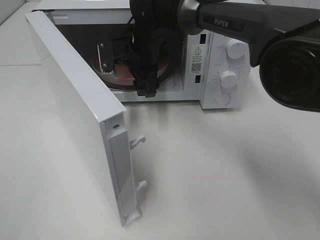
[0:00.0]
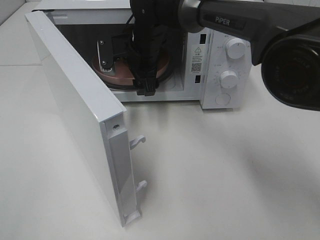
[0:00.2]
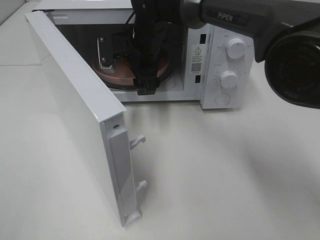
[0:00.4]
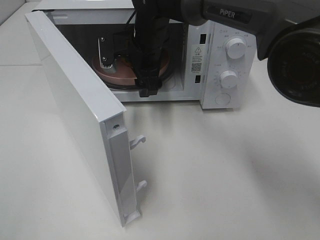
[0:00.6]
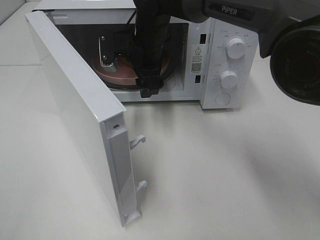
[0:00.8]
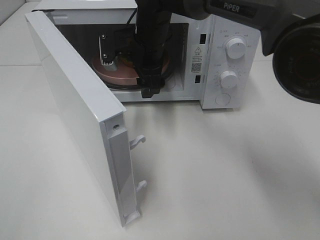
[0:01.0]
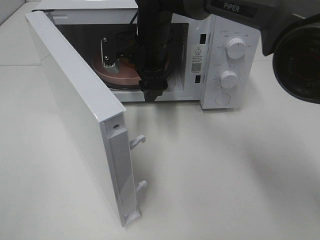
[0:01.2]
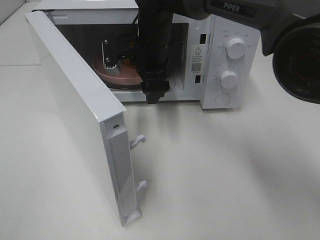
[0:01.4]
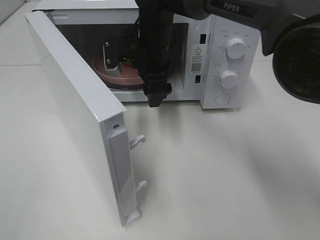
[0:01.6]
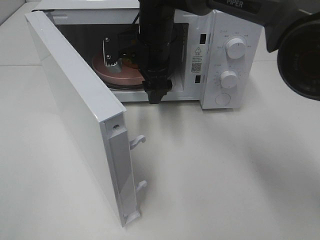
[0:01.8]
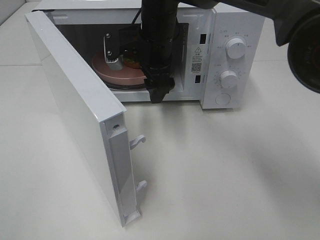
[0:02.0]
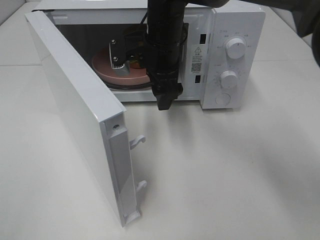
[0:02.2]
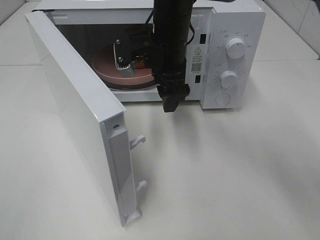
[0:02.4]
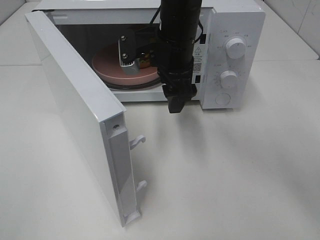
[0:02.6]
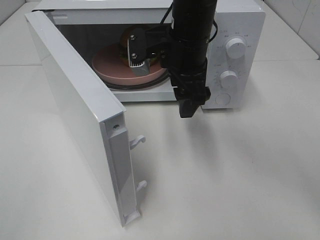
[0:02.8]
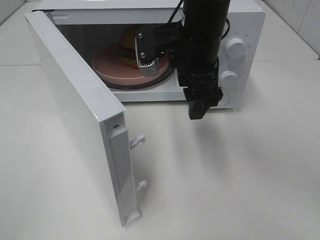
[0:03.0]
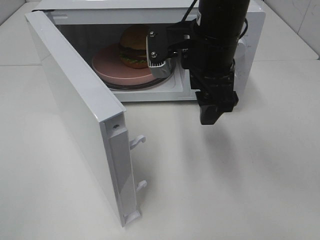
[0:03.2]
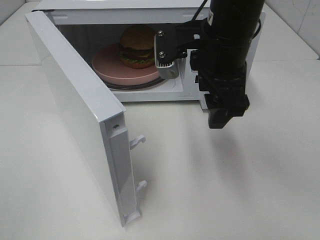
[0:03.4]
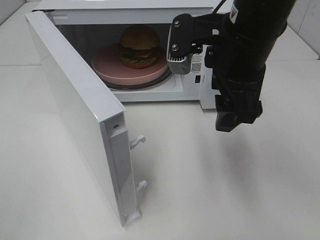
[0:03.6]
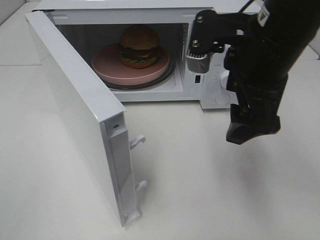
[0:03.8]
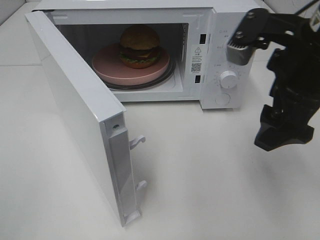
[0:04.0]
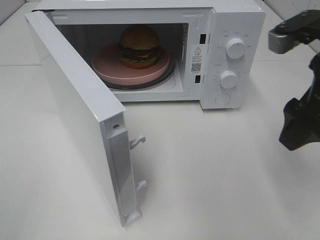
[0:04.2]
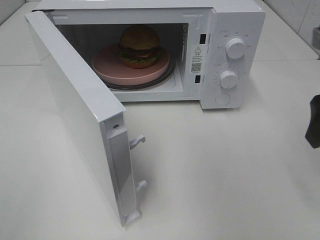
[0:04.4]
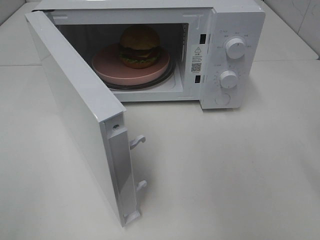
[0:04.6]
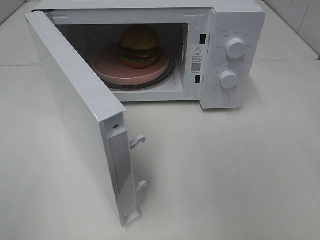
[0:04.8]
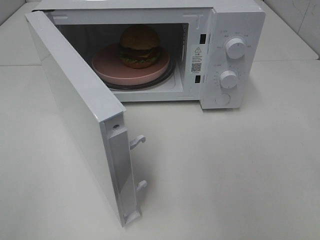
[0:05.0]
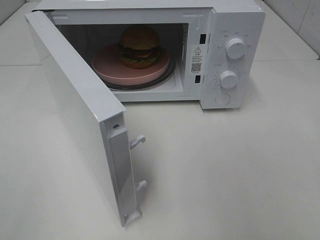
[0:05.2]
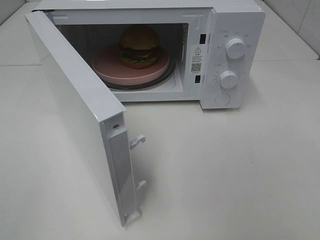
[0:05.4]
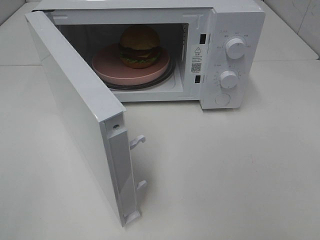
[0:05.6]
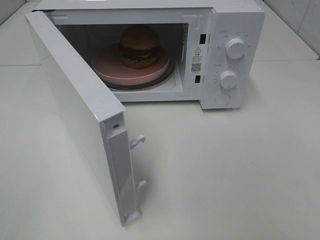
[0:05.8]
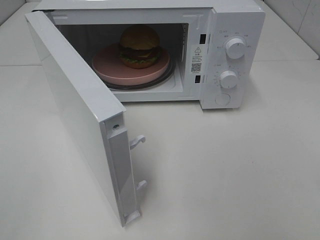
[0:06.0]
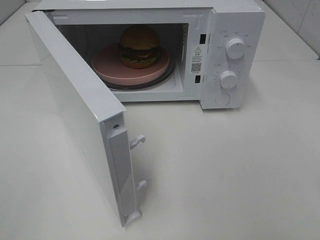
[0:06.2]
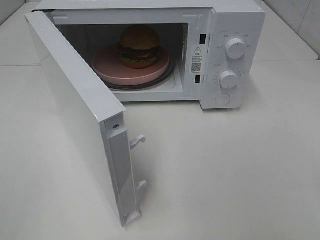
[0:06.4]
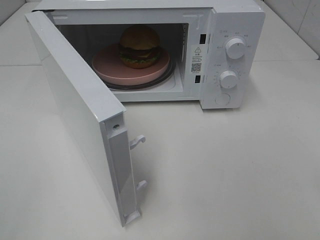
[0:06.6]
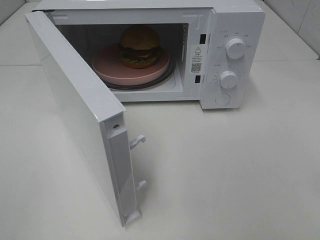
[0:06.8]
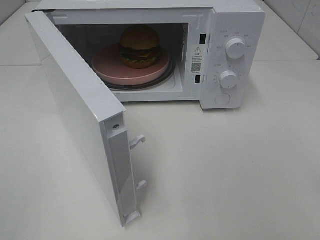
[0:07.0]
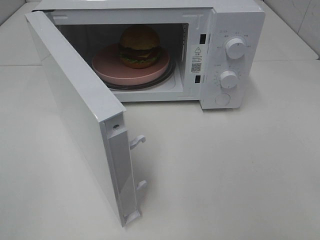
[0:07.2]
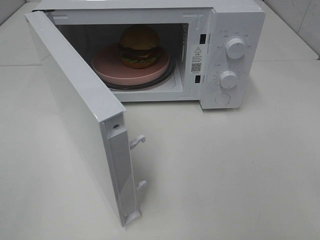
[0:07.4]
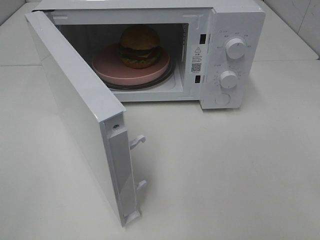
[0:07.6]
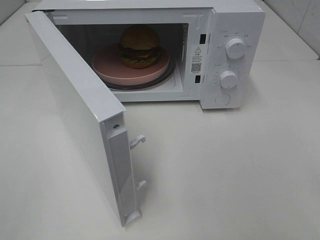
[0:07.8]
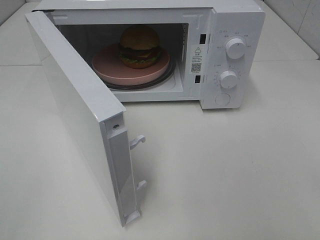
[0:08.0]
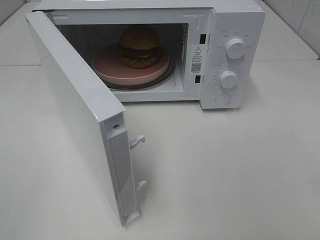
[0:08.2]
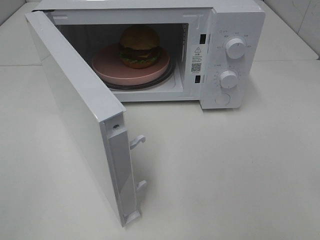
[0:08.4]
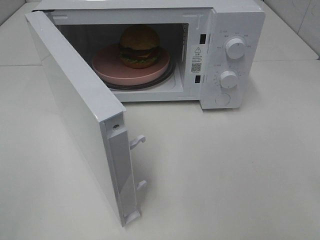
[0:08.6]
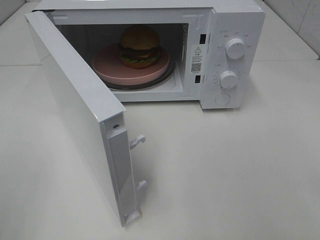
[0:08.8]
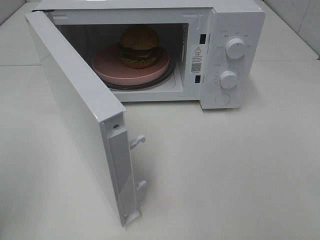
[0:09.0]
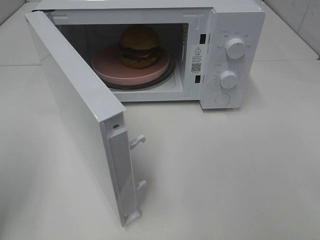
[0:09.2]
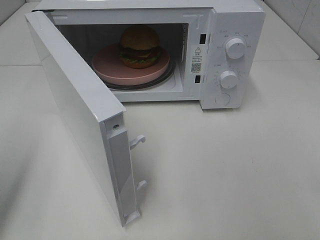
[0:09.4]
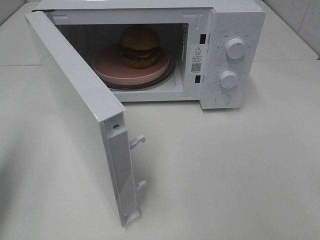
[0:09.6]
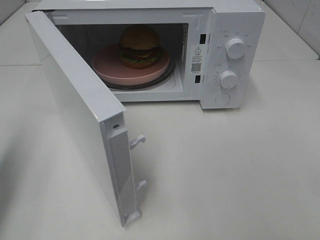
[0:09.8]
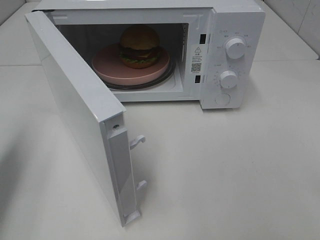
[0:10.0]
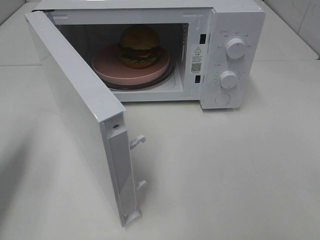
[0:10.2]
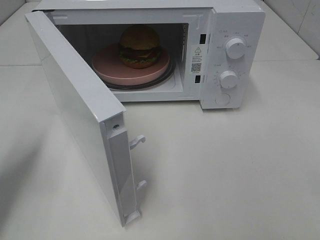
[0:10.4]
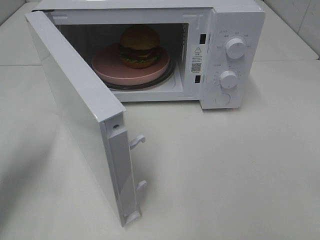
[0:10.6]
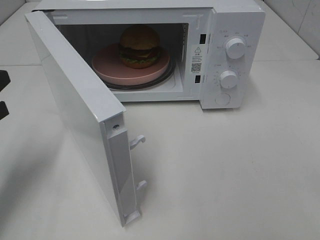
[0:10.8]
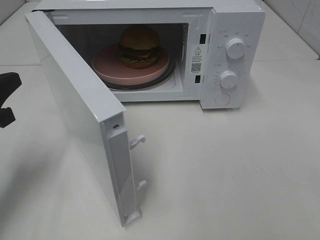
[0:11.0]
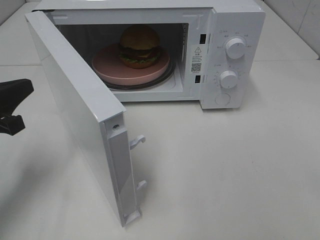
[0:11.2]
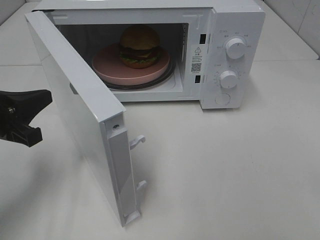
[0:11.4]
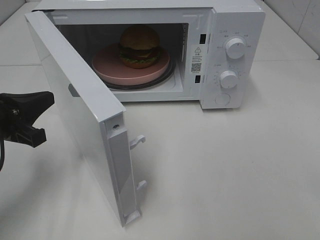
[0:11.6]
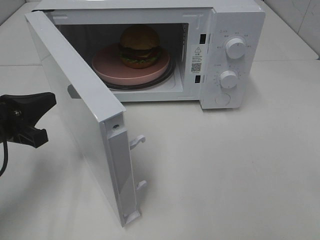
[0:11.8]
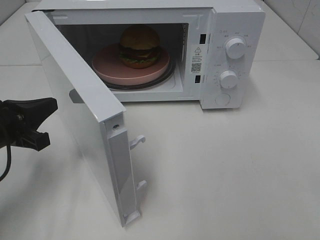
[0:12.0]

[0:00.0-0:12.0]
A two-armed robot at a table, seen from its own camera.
Task of the whole recording: Heat the burger.
0:00.0 to 0:01.6: The grippers make only small movements.
0:01.6 to 0:03.0: The right gripper shifts approximately 15 cm backward, to the right and upward.
0:03.0 to 0:04.4: The right gripper goes approximately 25 cm to the right and backward.
0:04.4 to 0:06.0: The right gripper is displaced backward by approximately 20 cm.
0:09.0 to 0:10.4: The left gripper is displaced forward and downward by about 15 cm, and closes its fingers.
0:10.4 to 0:12.0: The left gripper travels downward and to the right by some 10 cm.

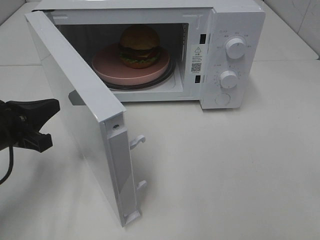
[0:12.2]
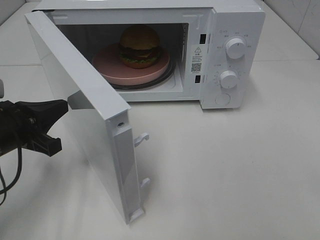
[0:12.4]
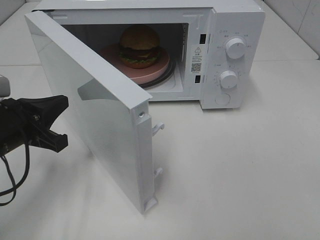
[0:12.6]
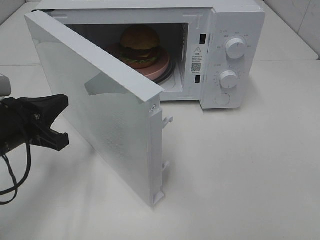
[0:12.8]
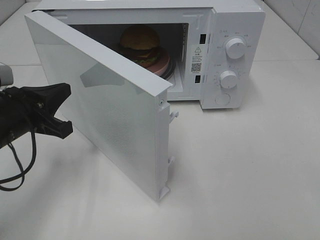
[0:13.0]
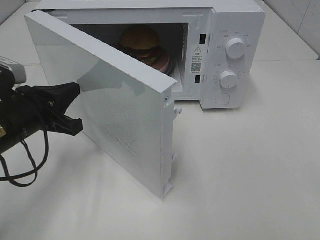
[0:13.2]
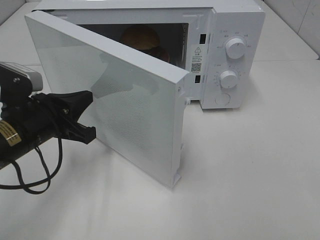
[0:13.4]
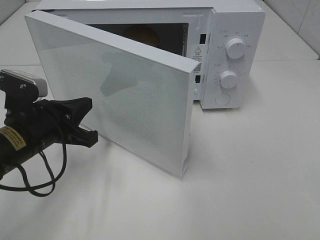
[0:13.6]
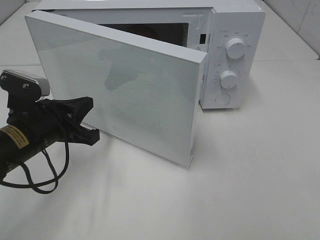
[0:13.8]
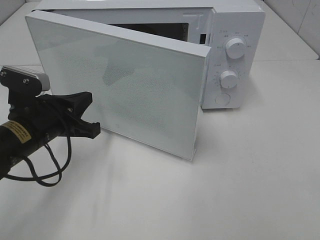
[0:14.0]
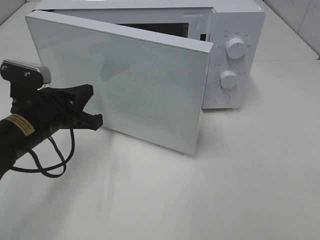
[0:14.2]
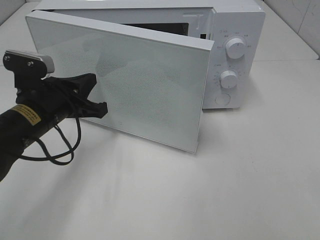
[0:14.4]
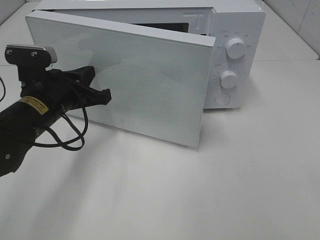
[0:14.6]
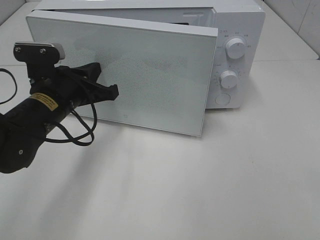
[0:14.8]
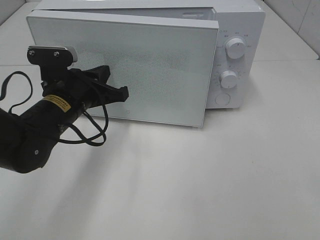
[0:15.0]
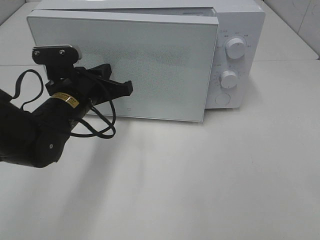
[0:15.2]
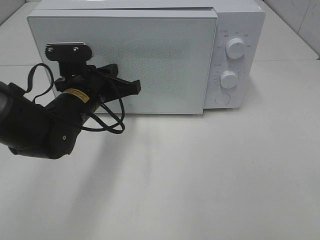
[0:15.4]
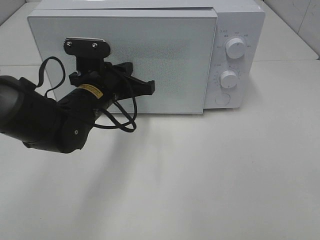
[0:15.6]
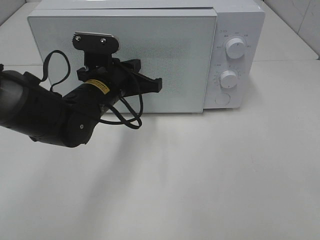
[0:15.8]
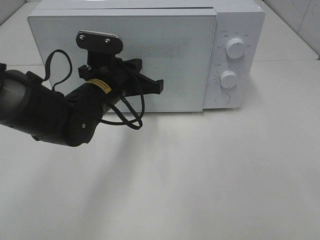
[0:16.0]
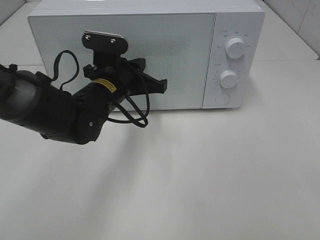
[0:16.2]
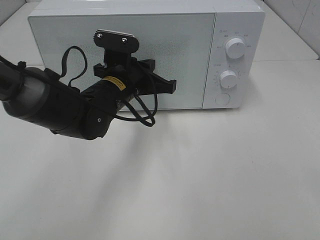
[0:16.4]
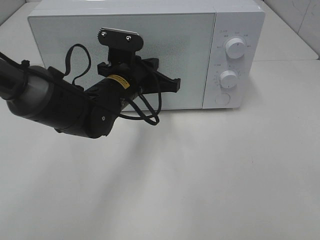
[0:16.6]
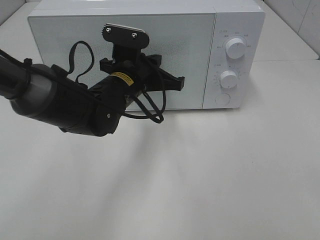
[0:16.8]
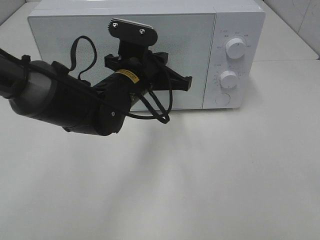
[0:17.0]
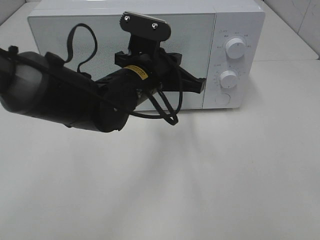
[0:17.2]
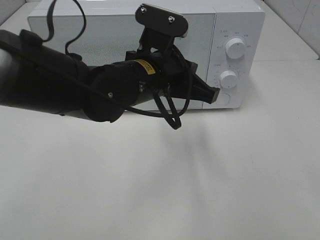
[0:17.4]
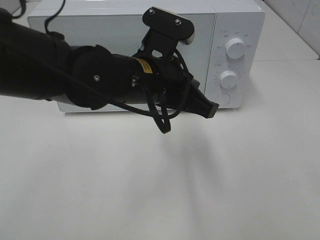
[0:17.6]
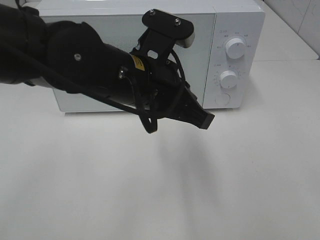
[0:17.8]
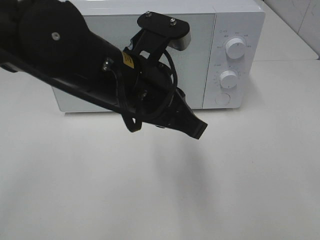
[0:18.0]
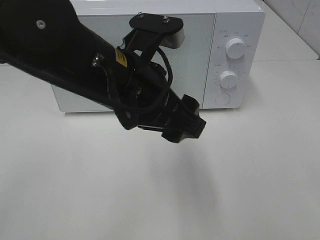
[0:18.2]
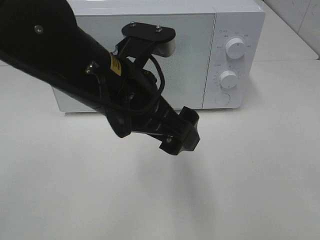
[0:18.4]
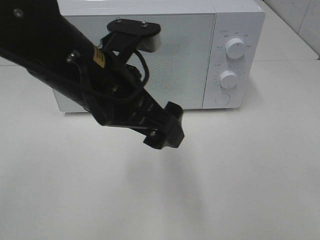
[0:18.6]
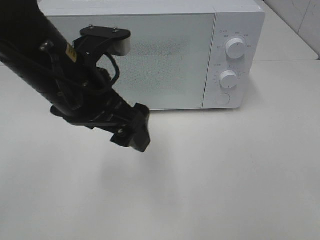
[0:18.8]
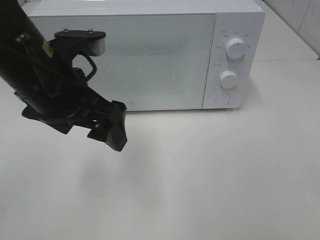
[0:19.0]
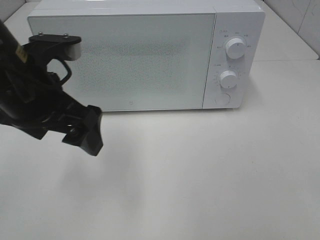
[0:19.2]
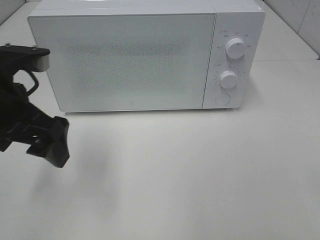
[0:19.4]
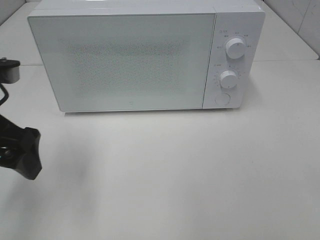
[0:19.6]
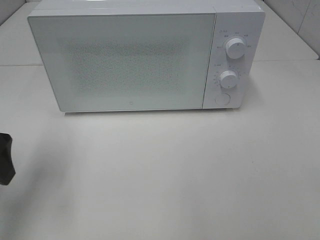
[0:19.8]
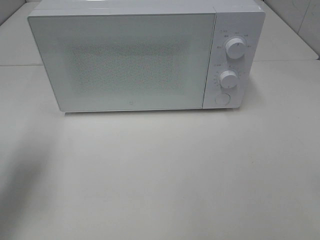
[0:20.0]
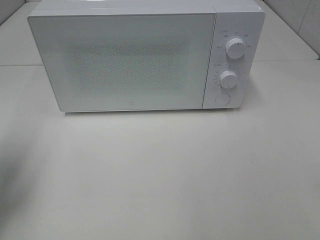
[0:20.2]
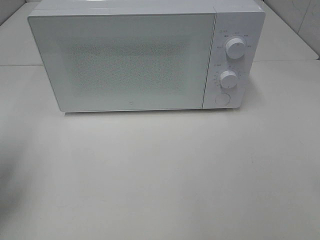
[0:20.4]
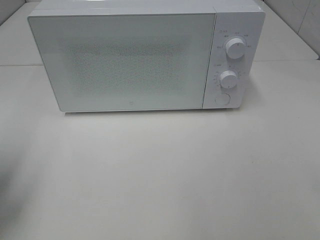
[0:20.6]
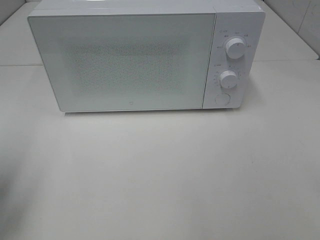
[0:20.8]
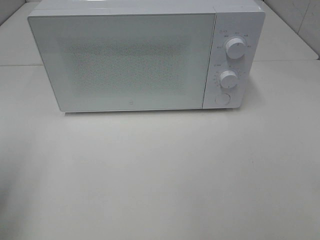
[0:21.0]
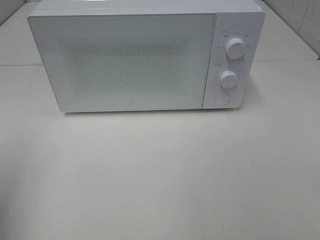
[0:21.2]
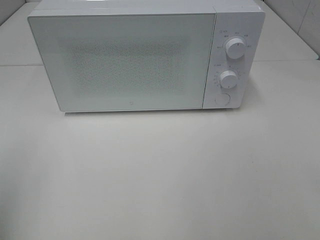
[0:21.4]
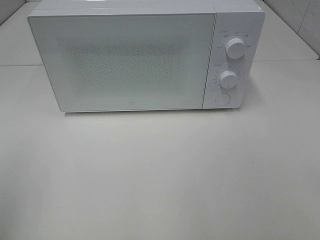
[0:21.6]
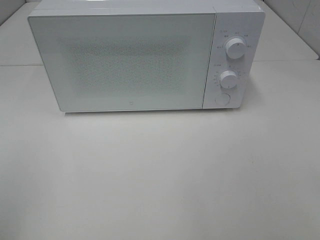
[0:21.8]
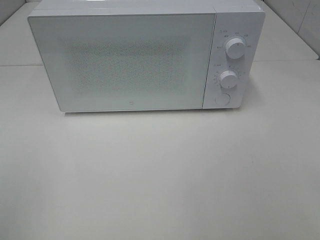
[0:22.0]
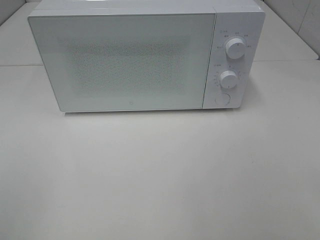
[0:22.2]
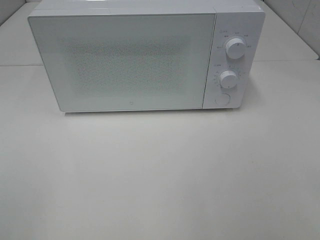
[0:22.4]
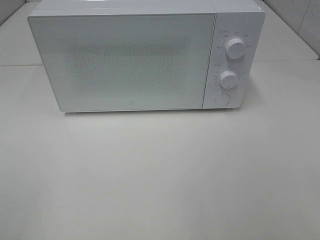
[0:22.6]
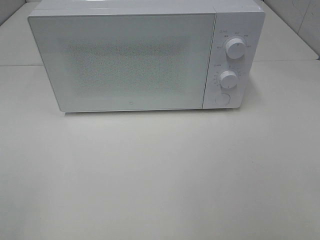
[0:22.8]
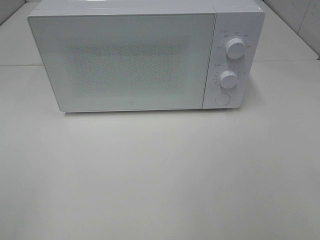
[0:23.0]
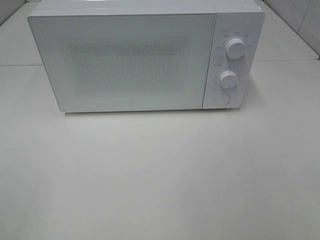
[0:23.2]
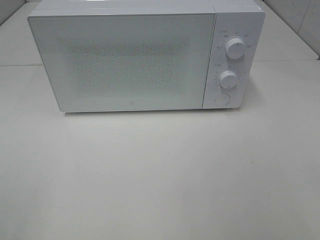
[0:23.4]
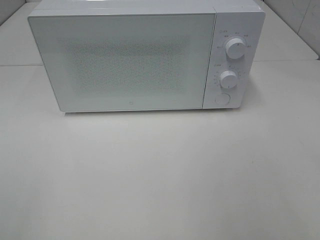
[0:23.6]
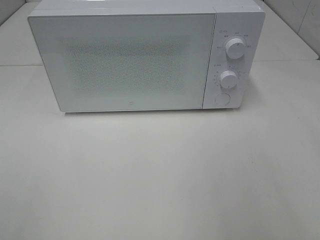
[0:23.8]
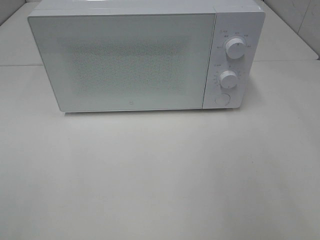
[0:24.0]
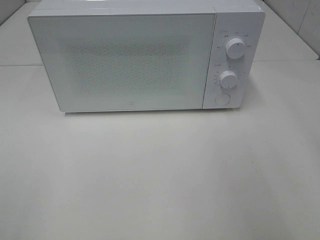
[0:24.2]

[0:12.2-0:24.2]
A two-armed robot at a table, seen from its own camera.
Task of the whole recording: Heat the burger.
Step, 0:12.2 to 0:16.8: Left hand: close the microwave door.
0:12.2 to 0:13.8: The left gripper shifts approximately 5 cm to the right.
0:13.8 to 0:15.2: The left gripper is displaced forward and to the right by approximately 10 cm.
0:15.2 to 0:16.6: The left gripper is displaced to the right by roughly 5 cm.
0:16.6 to 0:18.2: The left gripper heads backward and upward, covering approximately 15 cm, and opens its fingers.
0:18.2 to 0:19.8: The left gripper heads to the left, covering about 20 cm.
0:19.8 to 0:21.2: The left gripper travels backward and to the left by about 10 cm.
